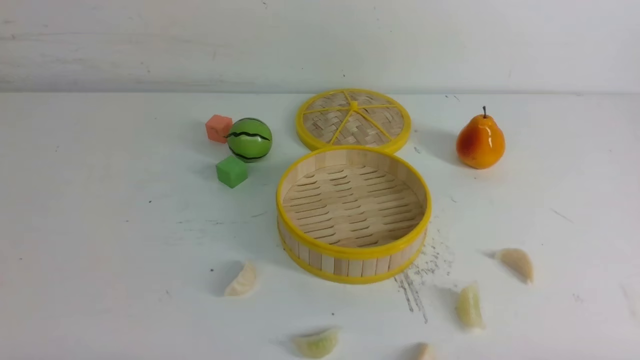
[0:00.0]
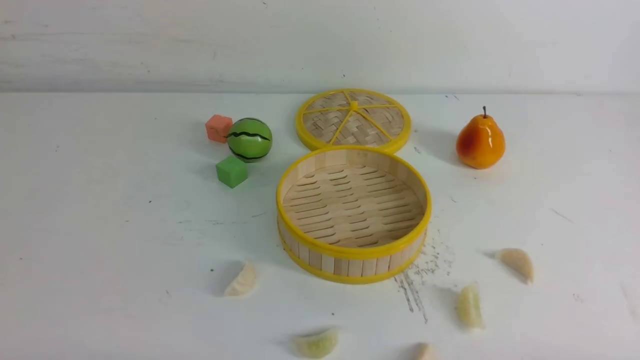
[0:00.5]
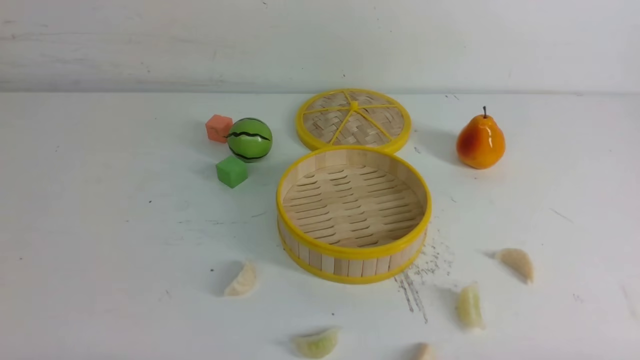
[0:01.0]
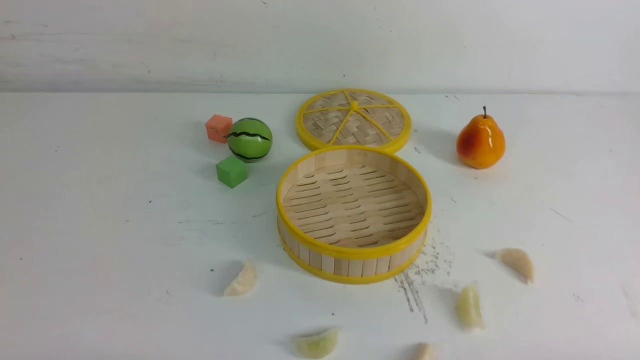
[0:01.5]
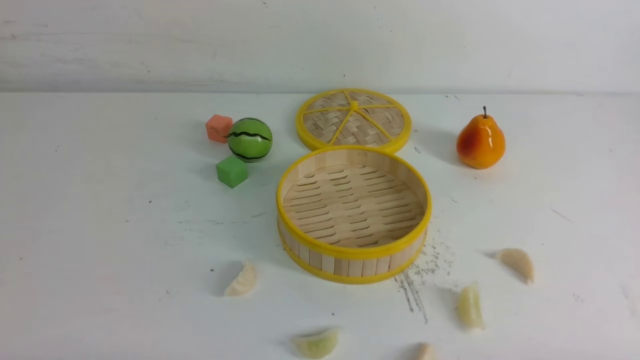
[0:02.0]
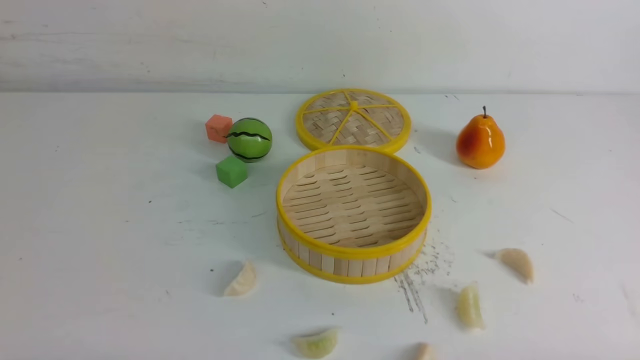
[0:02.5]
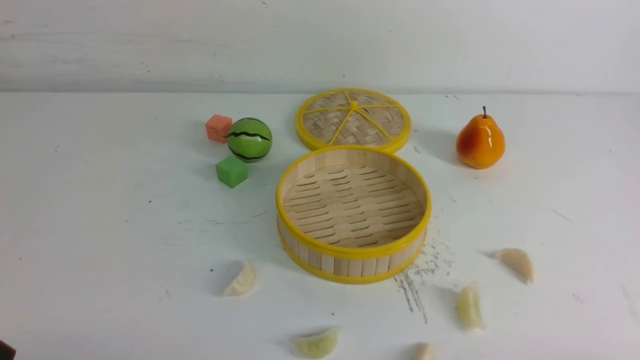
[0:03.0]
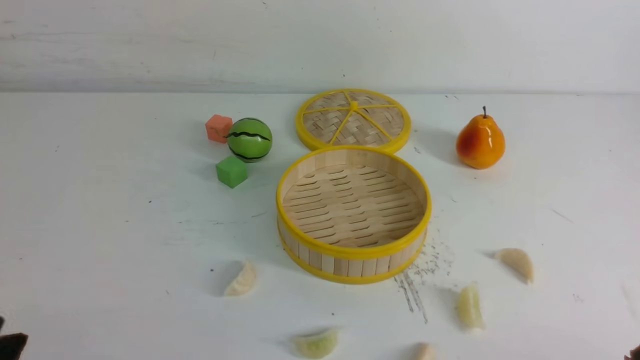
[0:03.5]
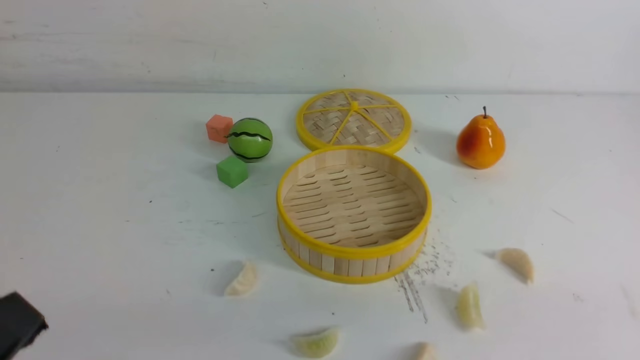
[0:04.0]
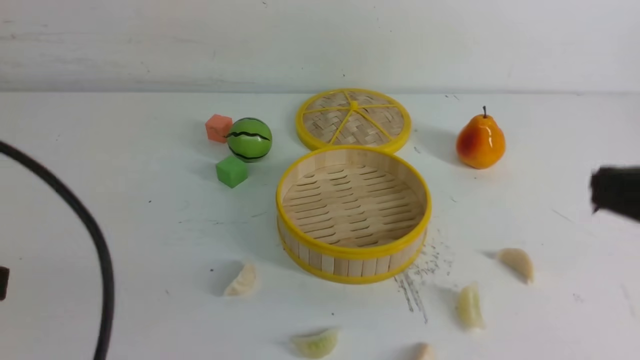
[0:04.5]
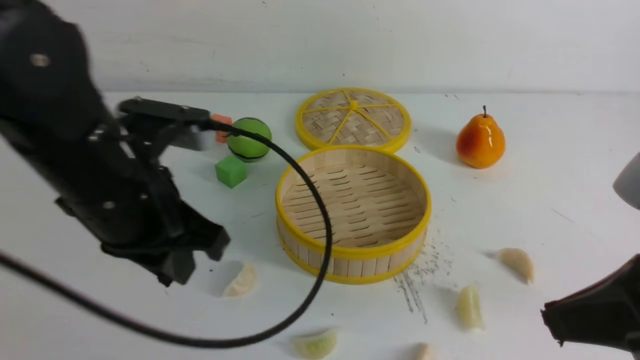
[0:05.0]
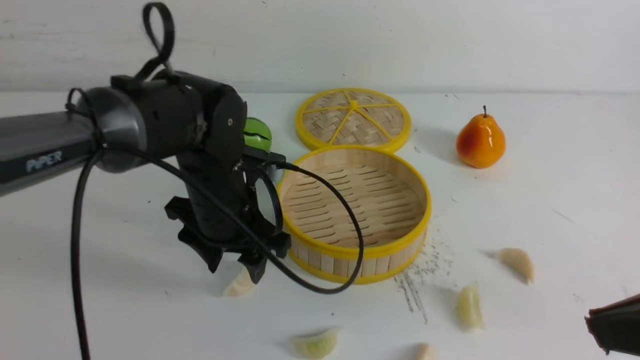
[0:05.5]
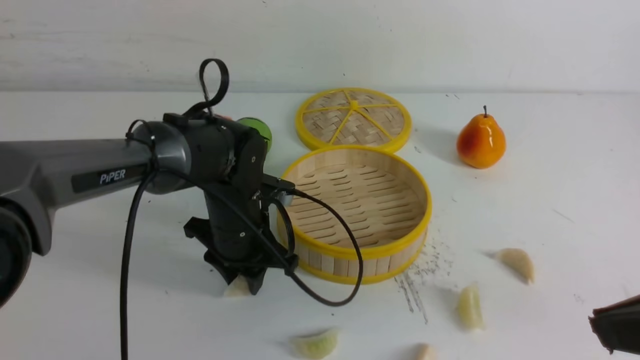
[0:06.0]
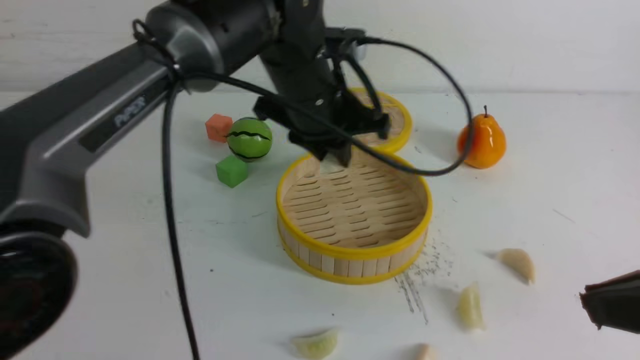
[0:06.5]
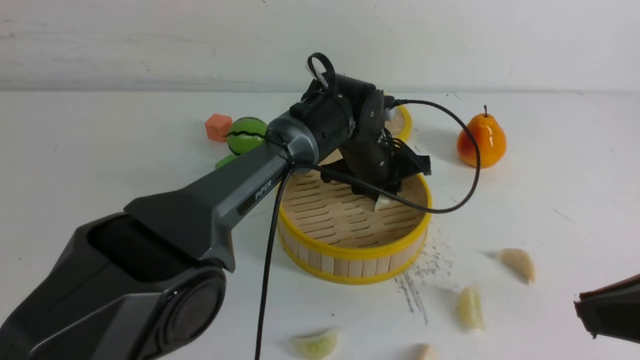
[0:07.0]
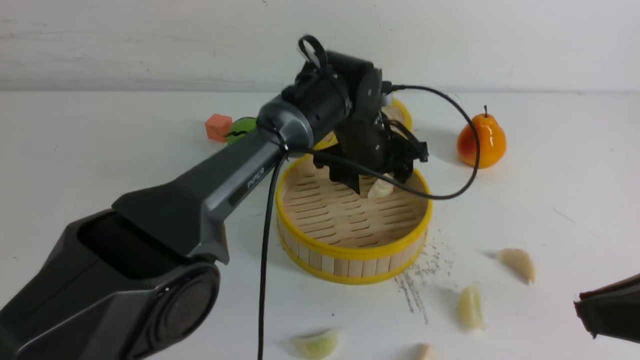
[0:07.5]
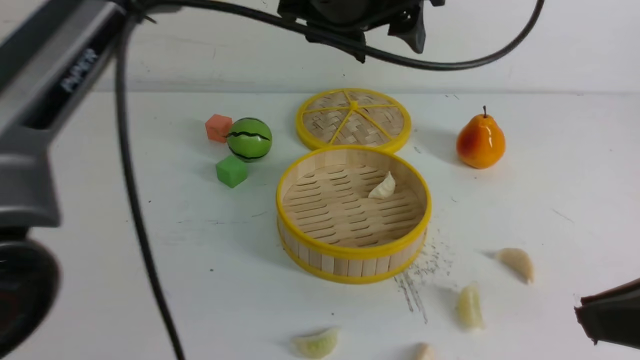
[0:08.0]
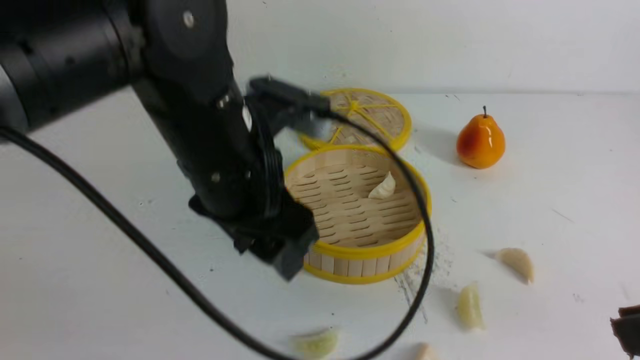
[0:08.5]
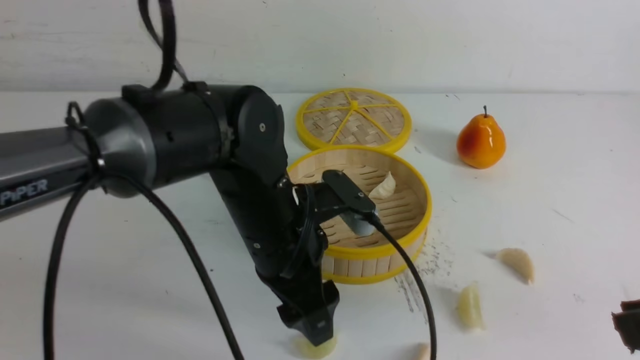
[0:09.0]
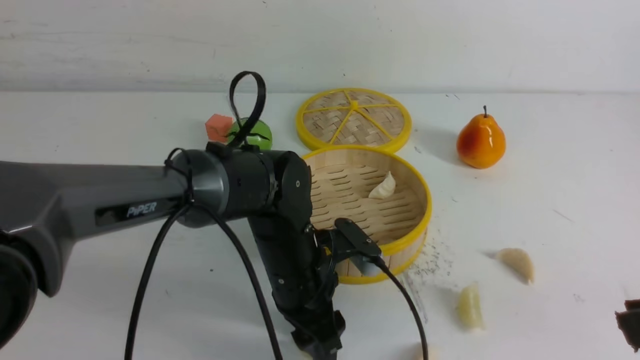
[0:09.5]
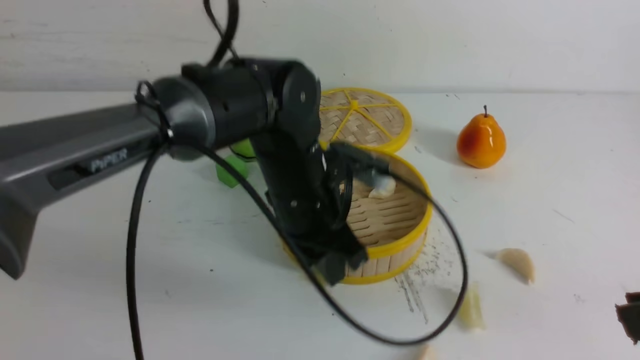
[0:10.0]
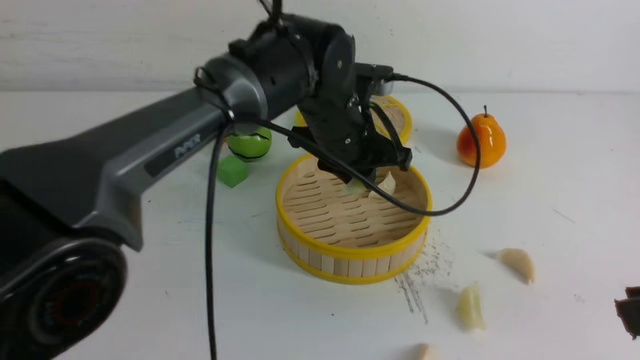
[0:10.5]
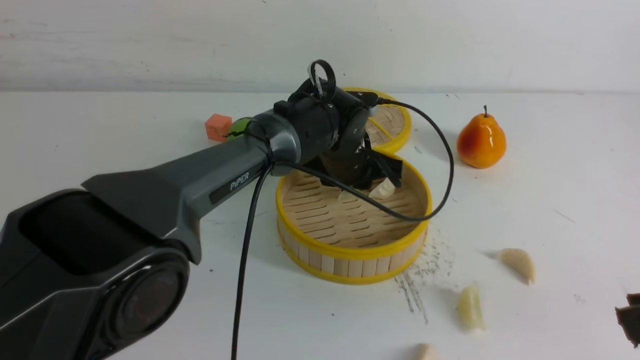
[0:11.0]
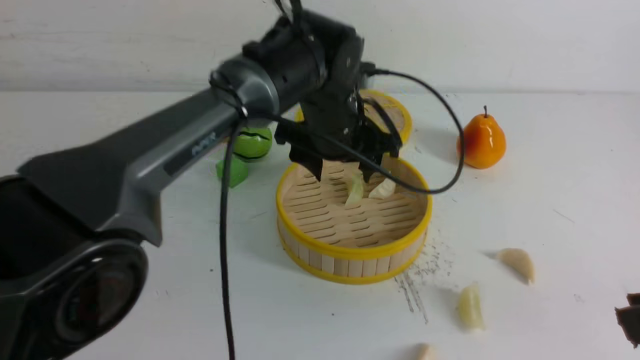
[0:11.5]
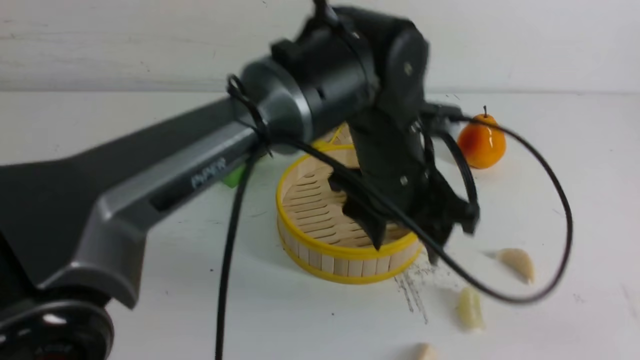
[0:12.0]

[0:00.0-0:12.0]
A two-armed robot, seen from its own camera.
Task of the whole recording: put the dumplings into the steamer on the white table.
Step, 0:00.0 to 0:06.0: use the left arm to grab a dumpling.
Step, 0:06.5 to 0:07.5: use the left arm to put the dumpling into the steamer.
Step, 0:08.0 to 0:09.5: use the left arm to grab a dumpling.
Step, 0:10.0 to 0:11.5: use the left arm to put the dumpling into the steamer.
0:00.0 to 0:02.0: Both grippers stay put.
0:02.0 to 0:04.0: The left gripper shifts approximately 15 cm upward.
0:04.0 to 0:06.0: The left gripper travels forward and to the right by some 35 cm. The right gripper shifts about 5 cm forward.
0:06.0 to 0:08.0: The left gripper moves up and down over about 25 cm, changing direction 2 times, and opens its fingers.
0:08.0 to 0:10.0: The left gripper shifts some 15 cm downward, and closes.
0:10.0 to 0:12.0: The left gripper is displaced to the right by some 10 cm, moves some 10 cm forward and comes back, and opens up.

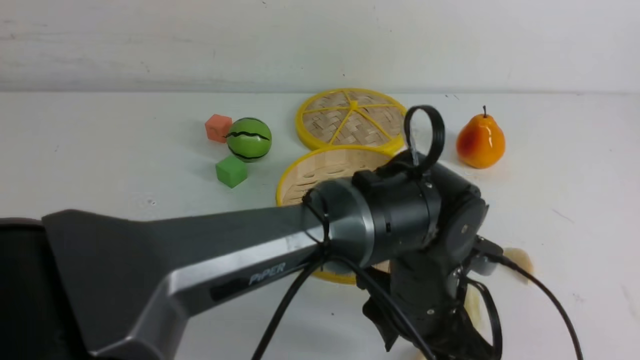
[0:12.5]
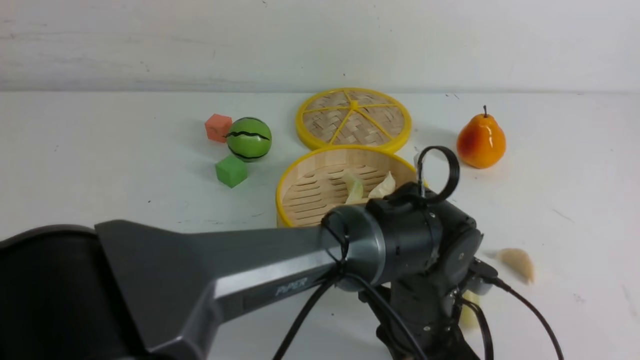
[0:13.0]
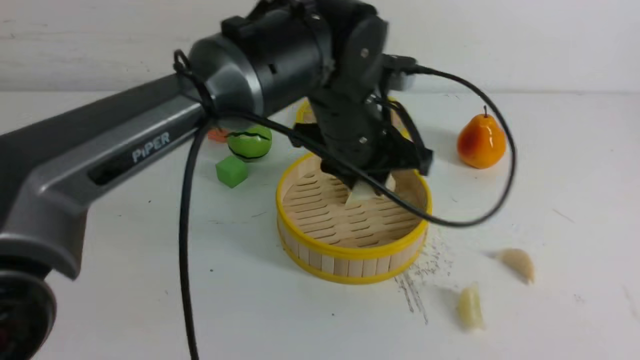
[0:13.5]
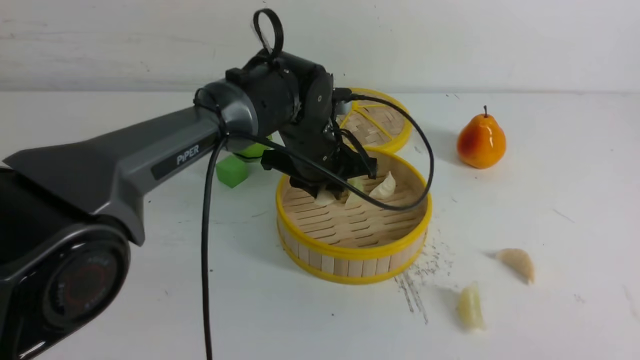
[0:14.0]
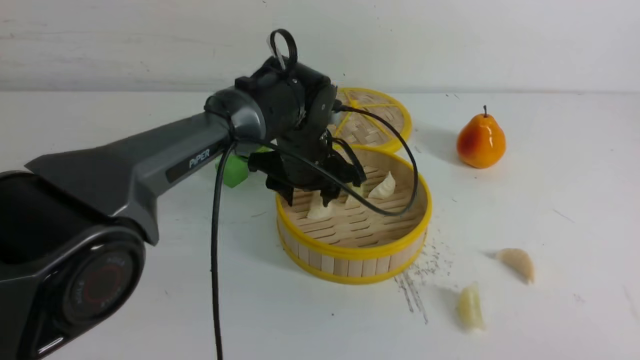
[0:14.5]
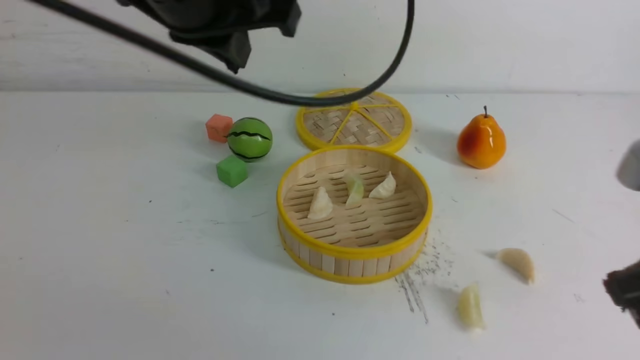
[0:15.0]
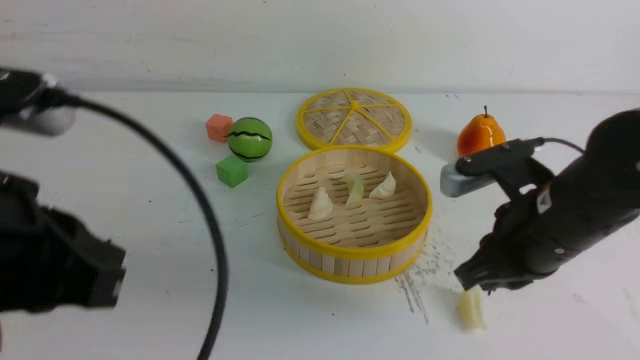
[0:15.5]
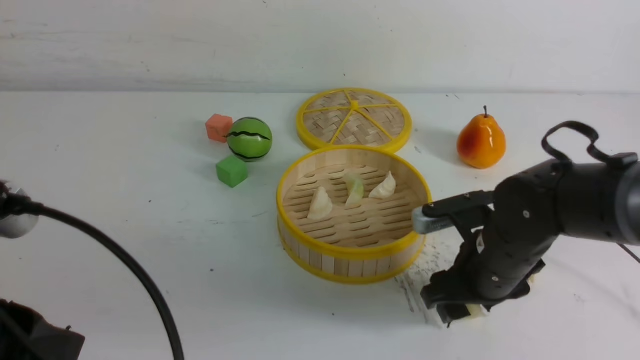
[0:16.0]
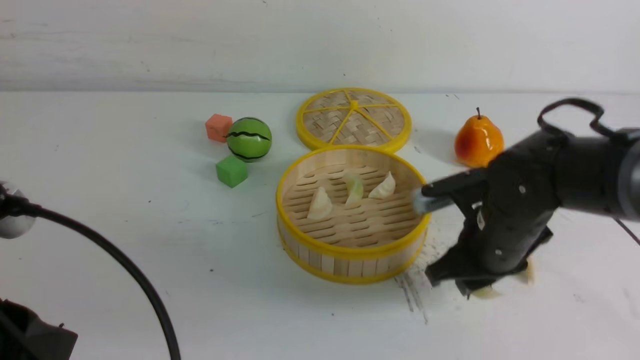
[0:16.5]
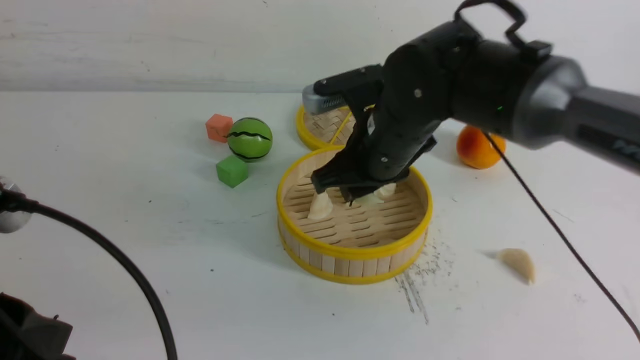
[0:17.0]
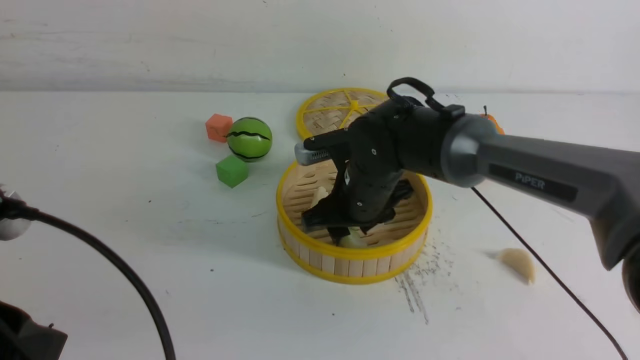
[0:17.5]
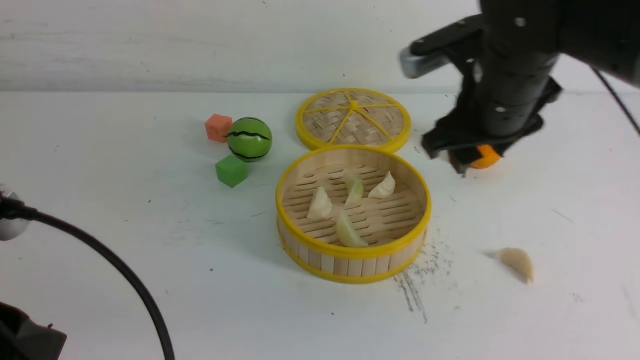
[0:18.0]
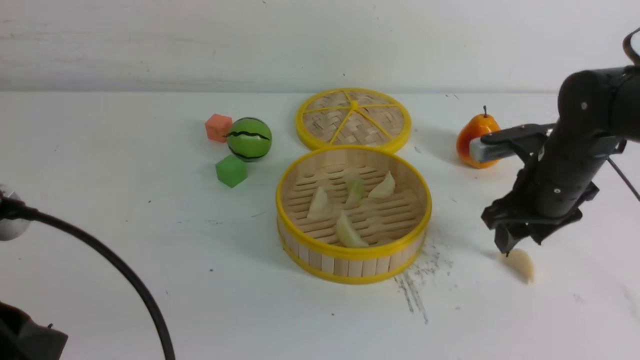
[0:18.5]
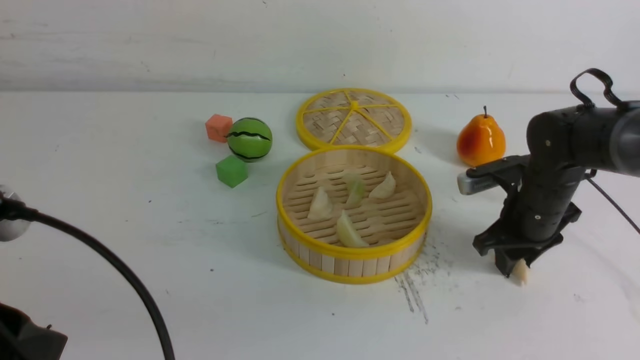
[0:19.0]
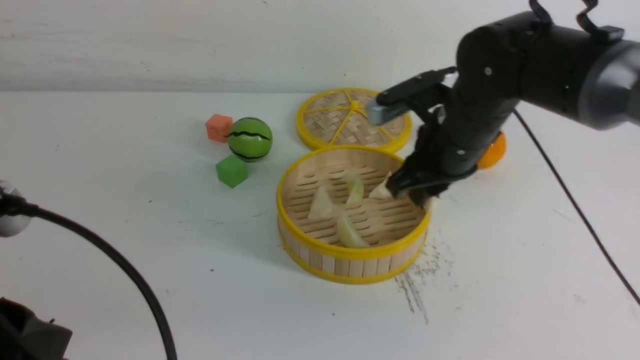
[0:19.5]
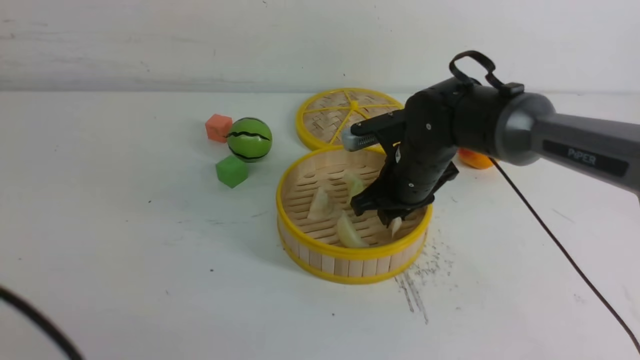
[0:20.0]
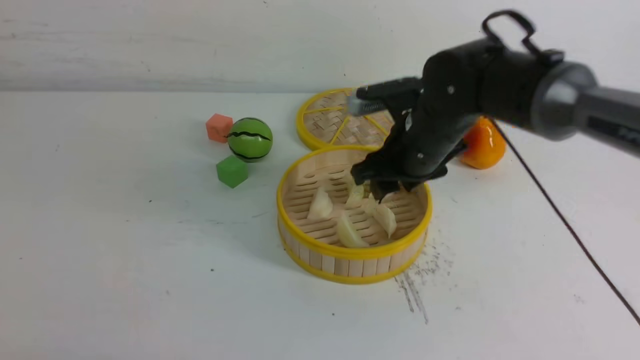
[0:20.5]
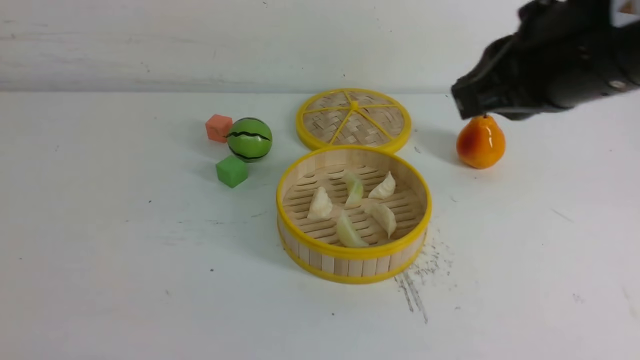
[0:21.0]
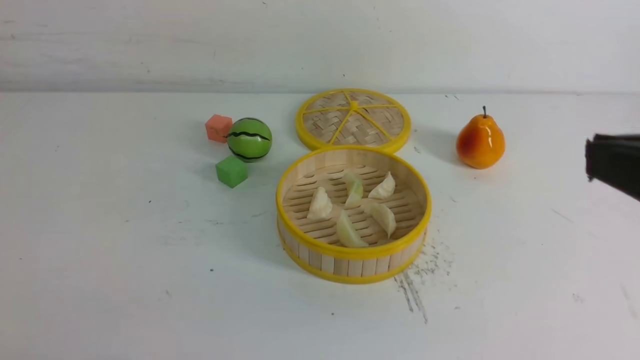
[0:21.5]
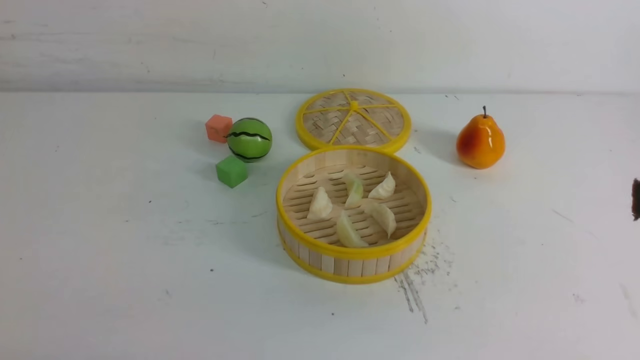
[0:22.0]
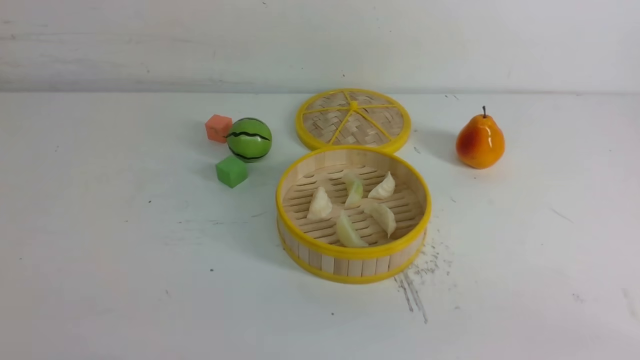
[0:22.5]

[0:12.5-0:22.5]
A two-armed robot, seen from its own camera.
Task of the whole recording: put the dumplings into the steamer on the white table.
Step, 0:13.5 to 0:14.5: use the left arm to put the dumpling into the steamer.
Step, 0:15.0 to 0:16.0: use the right arm to grab a dumpling.
Step, 0:17.0 to 0:17.5: use the right arm to put the dumpling into the steamer.
Step, 0:18.0 to 0:19.0: use the right arm to grab a dumpling.
Step, 0:19.5 to 0:20.5: use the right arm to put the dumpling into the steamer.
0:12.5 to 0:14.5: The left gripper goes approximately 20 cm forward and to the left.
0:14.5 to 0:16.5: The left gripper goes about 35 cm backward and to the left, and closes. Meanwhile the right gripper heads forward, to the left and downward, covering approximately 35 cm, and opens, then closes once more.
0:16.5 to 0:18.5: The right gripper moves to the right and forward, roughly 10 cm, and opens.
0:18.5 to 0:20.5: The left gripper goes some 10 cm backward and to the left; the right gripper shifts about 15 cm to the left and upward.
0:20.5 to 0:22.5: The right gripper heads backward and to the right, covering about 35 cm, and closes.
